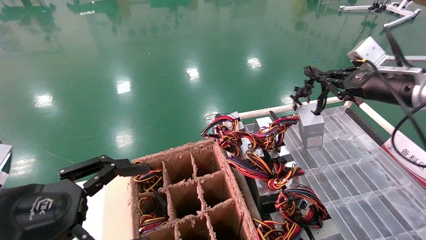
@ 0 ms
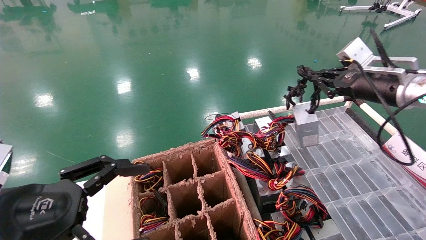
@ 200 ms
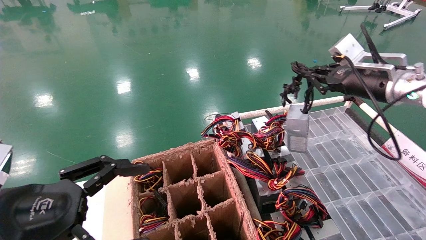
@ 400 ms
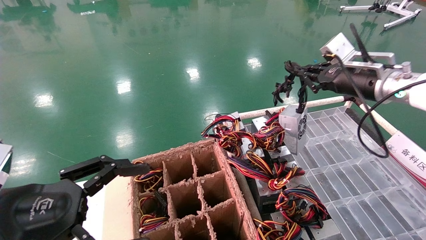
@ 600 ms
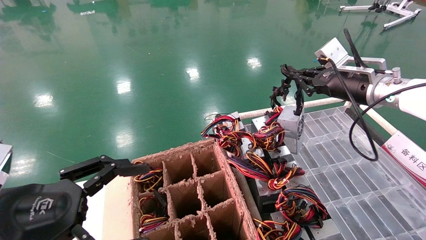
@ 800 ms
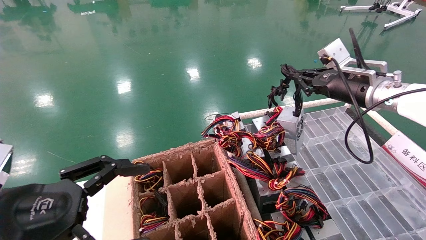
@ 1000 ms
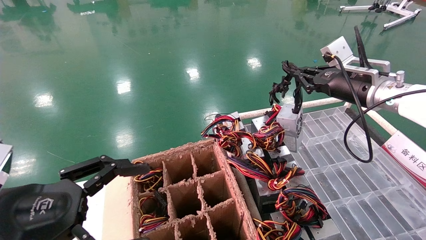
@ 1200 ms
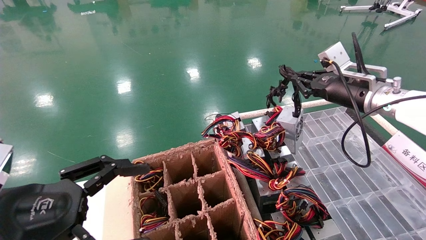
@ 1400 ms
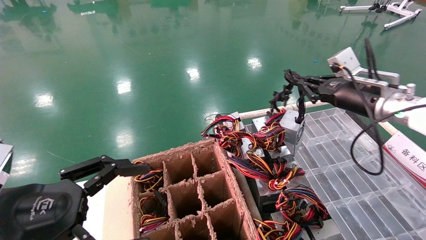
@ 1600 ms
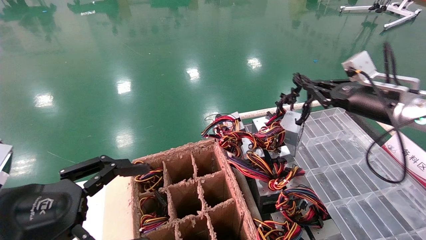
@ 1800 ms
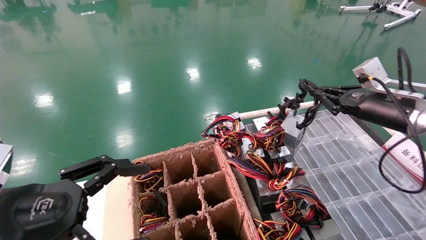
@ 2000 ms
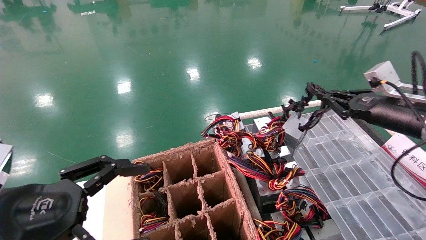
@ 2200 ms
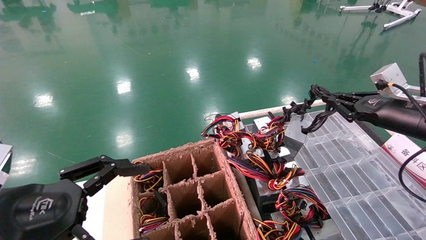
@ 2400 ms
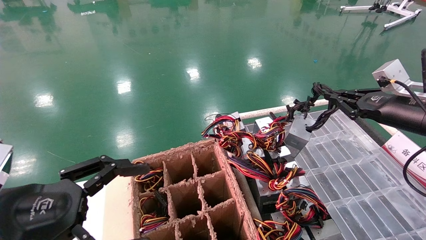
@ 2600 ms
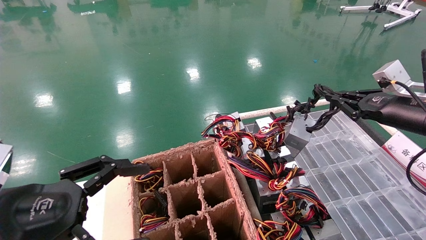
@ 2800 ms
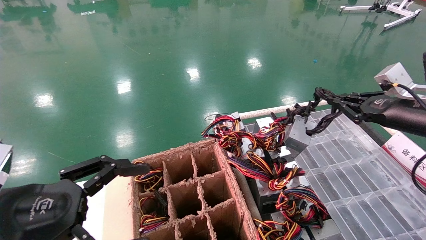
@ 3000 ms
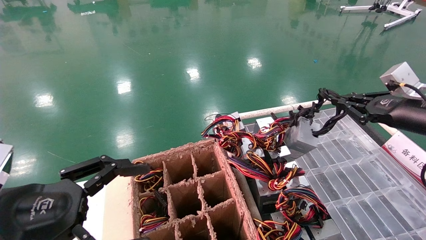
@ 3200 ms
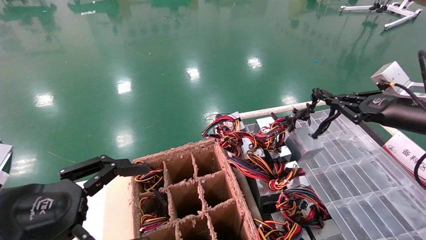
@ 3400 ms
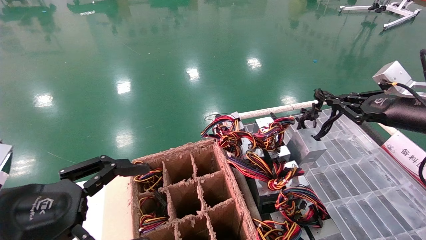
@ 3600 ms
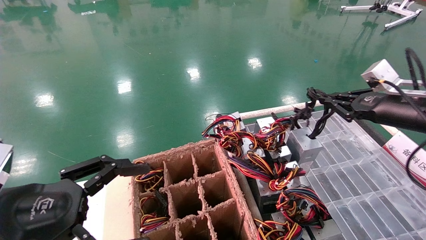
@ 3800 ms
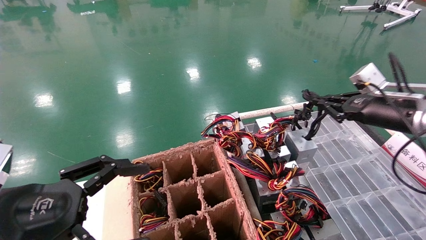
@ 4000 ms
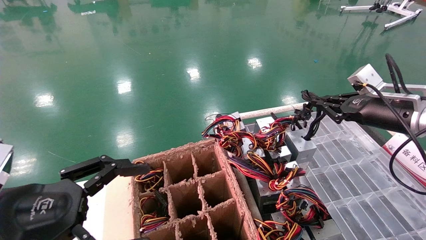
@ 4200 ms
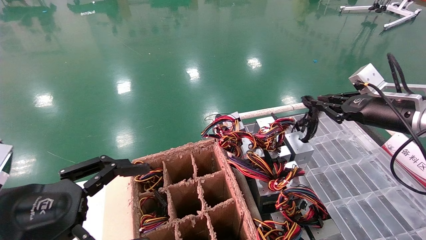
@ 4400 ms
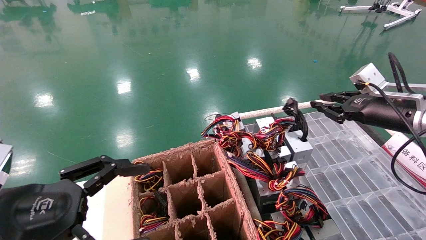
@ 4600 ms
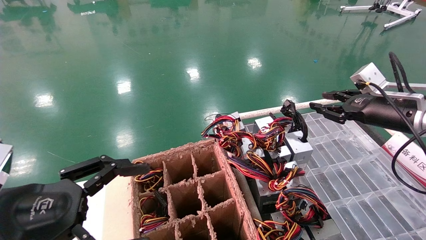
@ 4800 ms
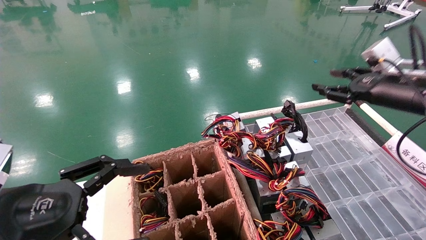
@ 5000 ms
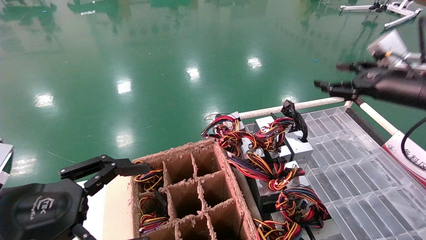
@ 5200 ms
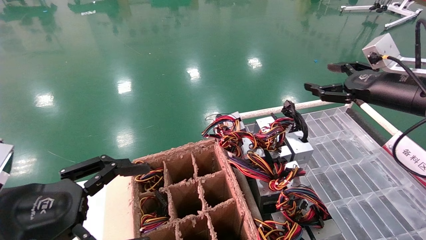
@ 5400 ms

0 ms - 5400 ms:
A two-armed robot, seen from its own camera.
Step, 0 ms - 4400 ms: Place the power supply on the operating table.
0 ms - 1400 ms: The right gripper ends up approximately 5 cm from where it was.
1400 ms - 2800 ms: The right gripper travels to the right and backward by about 10 cm.
2800 ms - 4000 ms: The grippers move only a little.
4000 ms - 5400 ms: The right gripper opens up.
